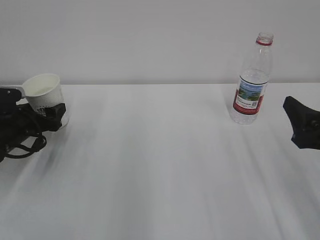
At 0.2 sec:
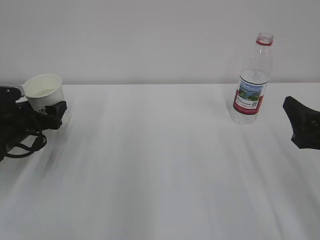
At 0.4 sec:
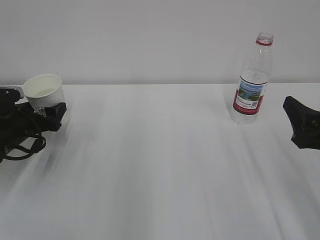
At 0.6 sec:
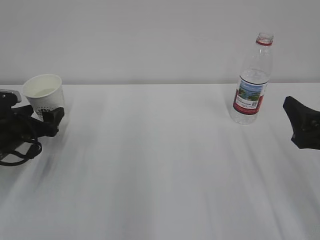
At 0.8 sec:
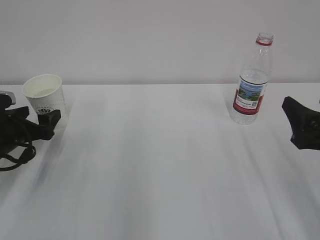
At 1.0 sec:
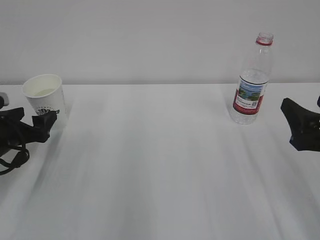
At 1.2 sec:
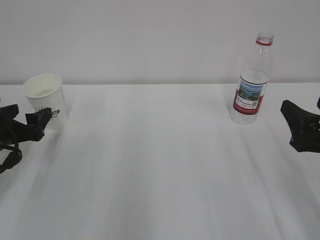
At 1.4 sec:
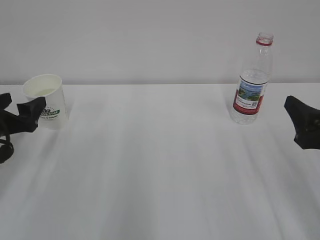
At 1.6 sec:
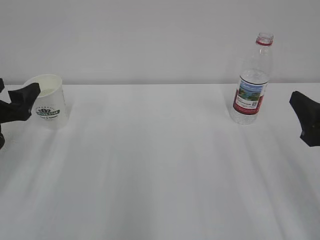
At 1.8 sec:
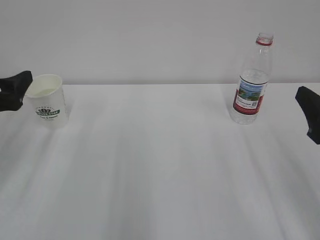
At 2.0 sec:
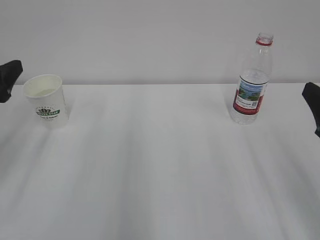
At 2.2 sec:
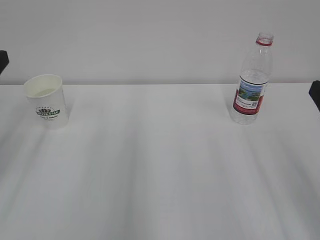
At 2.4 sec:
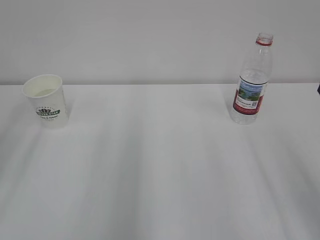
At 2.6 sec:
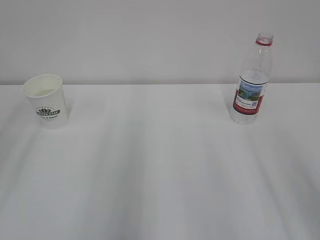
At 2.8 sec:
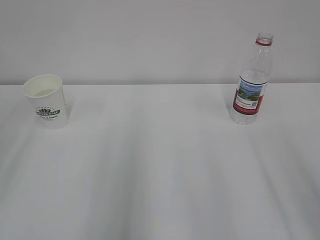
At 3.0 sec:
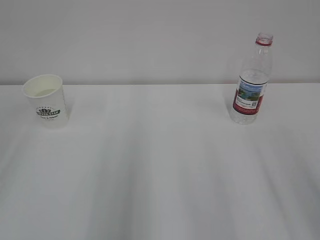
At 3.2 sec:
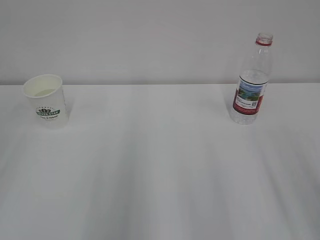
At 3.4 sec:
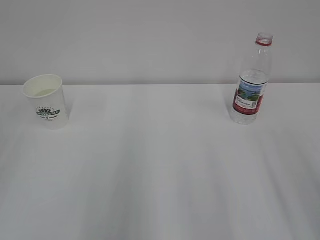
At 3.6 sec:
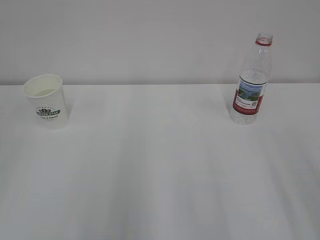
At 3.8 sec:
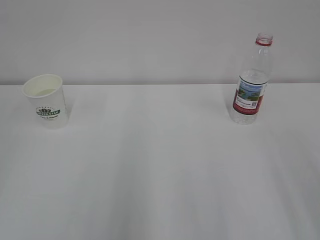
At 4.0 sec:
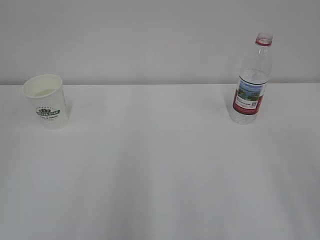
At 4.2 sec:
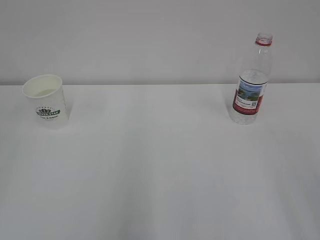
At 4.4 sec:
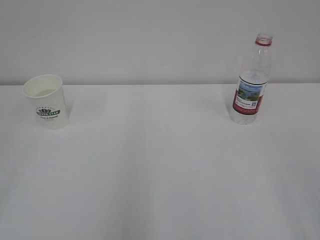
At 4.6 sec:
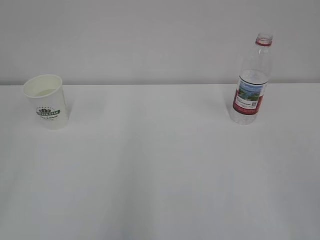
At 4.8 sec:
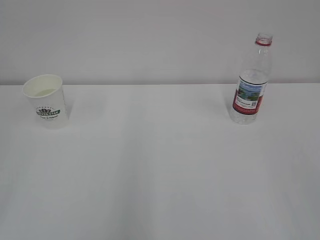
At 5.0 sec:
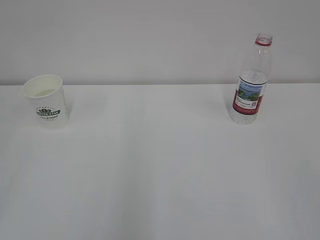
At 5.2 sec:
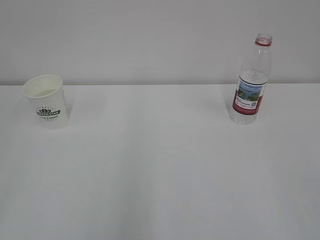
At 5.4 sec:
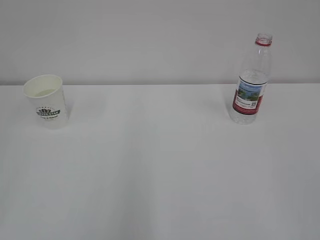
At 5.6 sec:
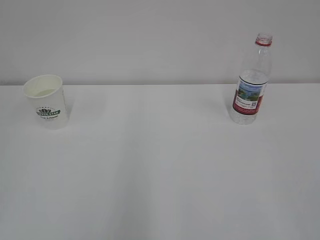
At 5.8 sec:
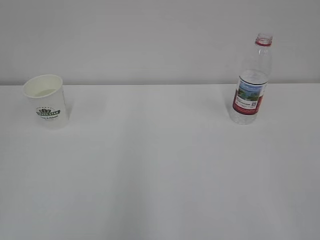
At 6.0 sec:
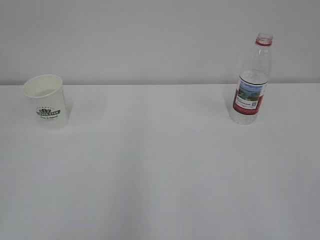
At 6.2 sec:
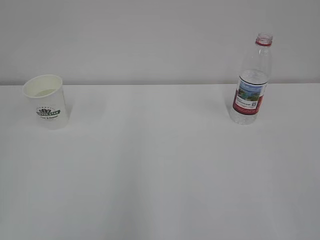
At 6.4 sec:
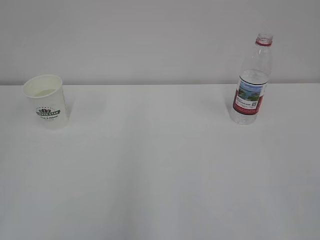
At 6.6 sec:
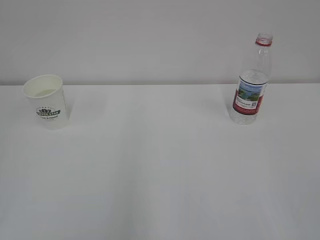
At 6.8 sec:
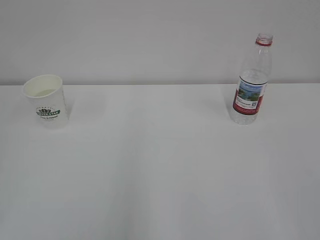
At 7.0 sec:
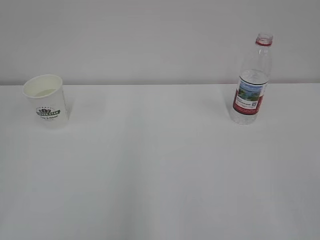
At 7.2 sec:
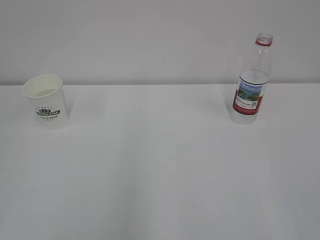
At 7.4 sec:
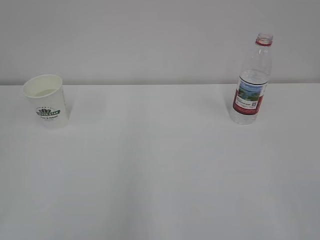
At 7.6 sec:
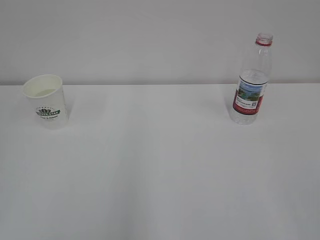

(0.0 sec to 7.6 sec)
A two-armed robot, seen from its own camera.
0.0 sec - 1.6 sec: The left gripper moves upward and backward, about 10 cm.
1.6 sec - 3.0 sec: The left gripper goes about 20 cm backward and upward. The right gripper is displaced backward and upward by roughly 10 cm.
